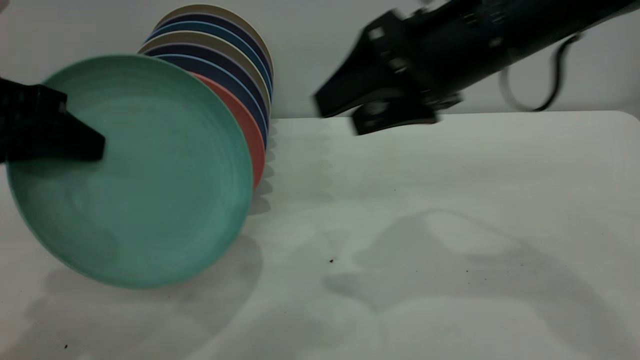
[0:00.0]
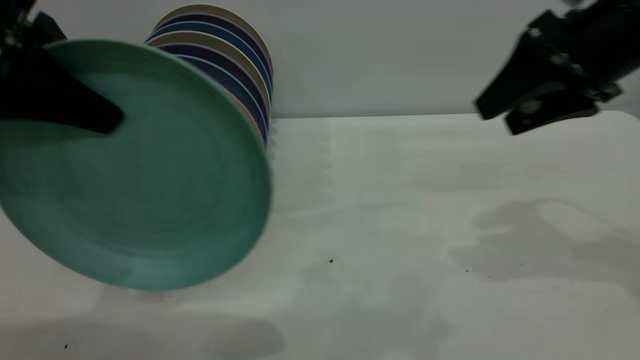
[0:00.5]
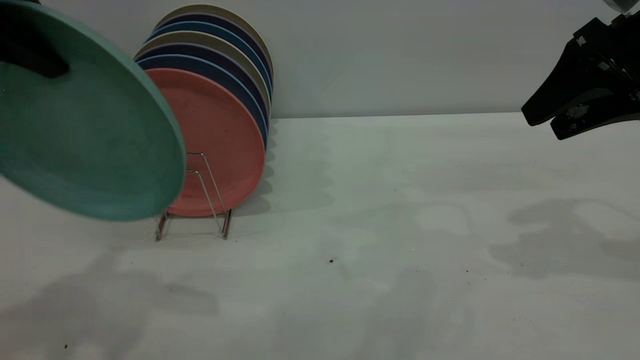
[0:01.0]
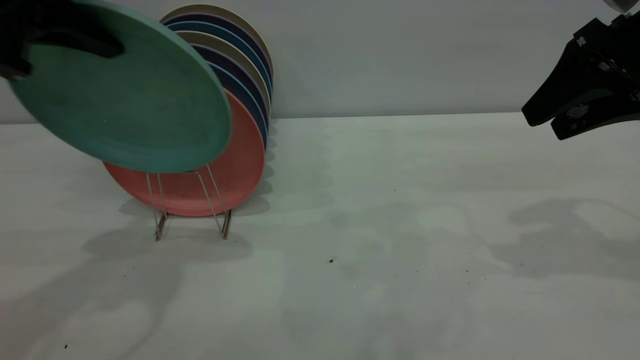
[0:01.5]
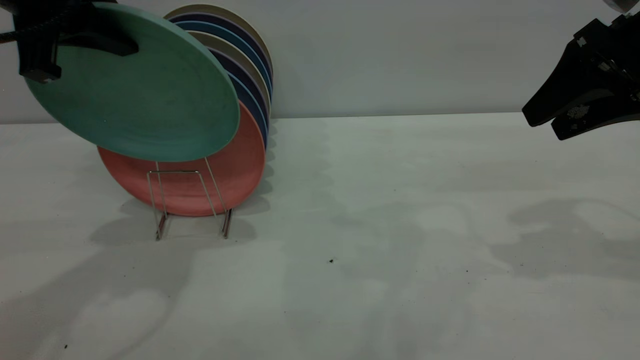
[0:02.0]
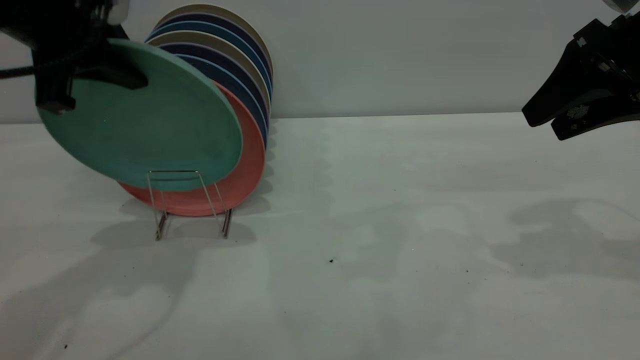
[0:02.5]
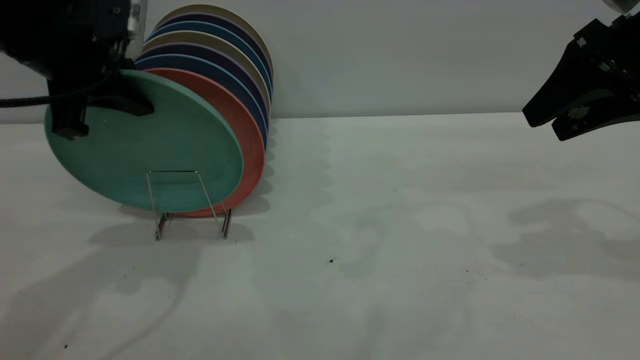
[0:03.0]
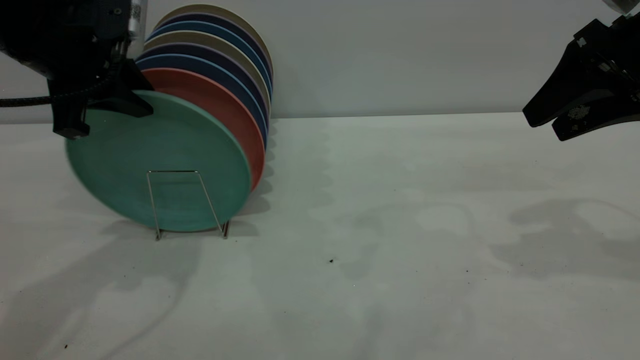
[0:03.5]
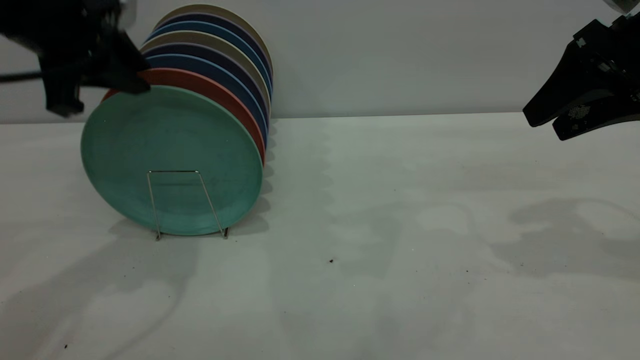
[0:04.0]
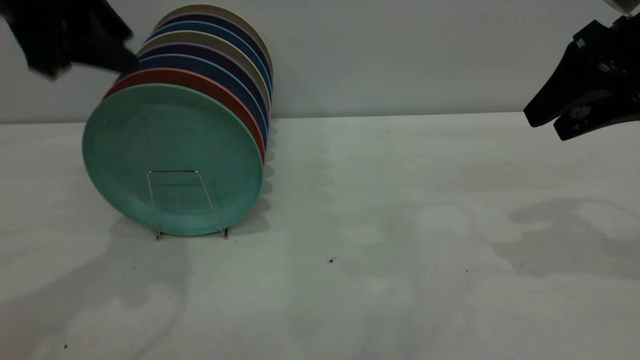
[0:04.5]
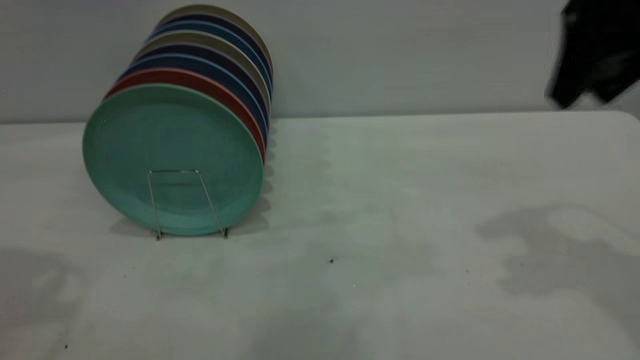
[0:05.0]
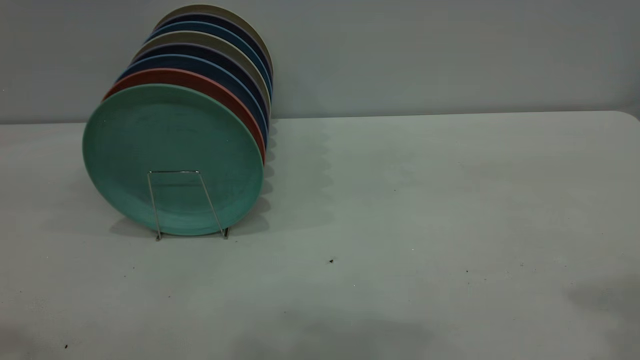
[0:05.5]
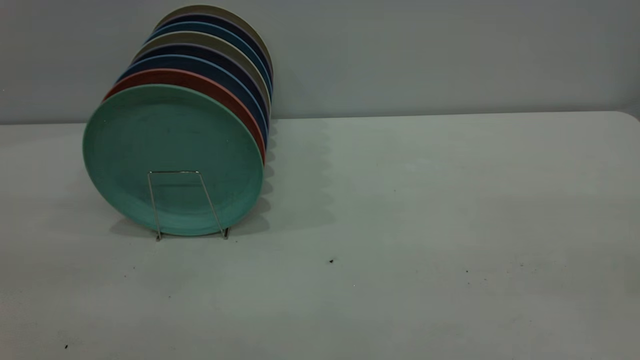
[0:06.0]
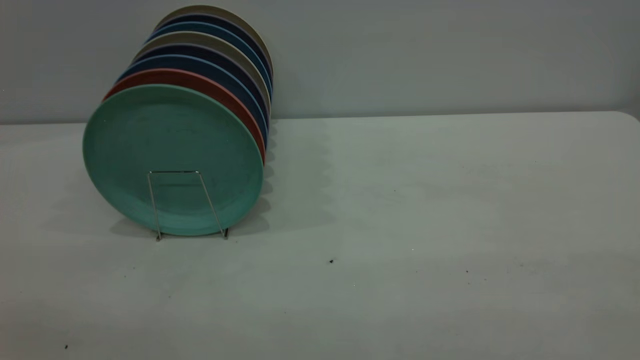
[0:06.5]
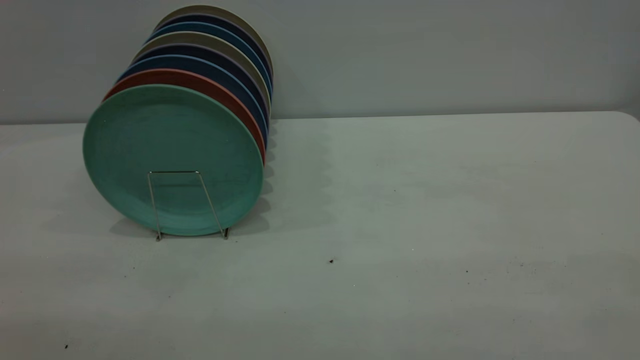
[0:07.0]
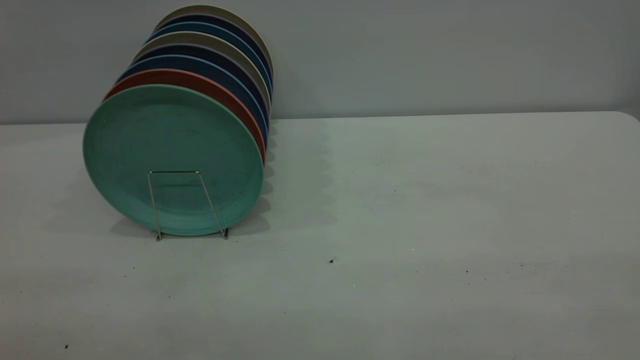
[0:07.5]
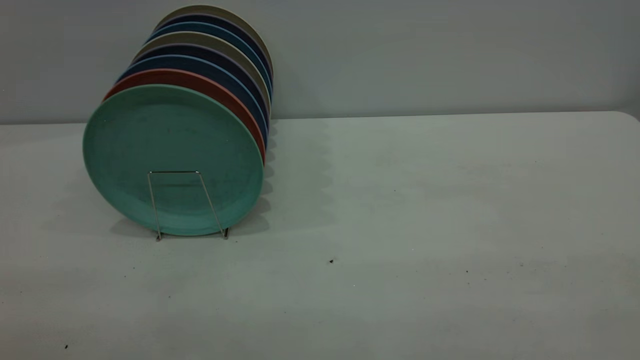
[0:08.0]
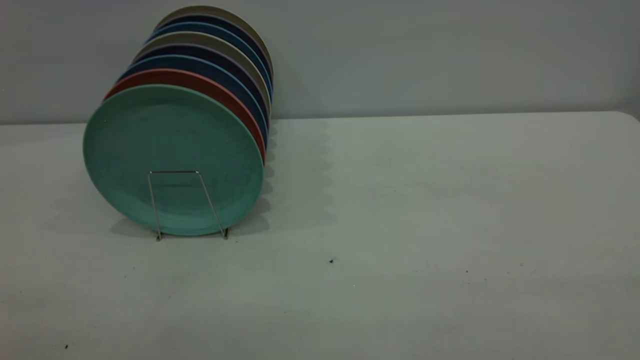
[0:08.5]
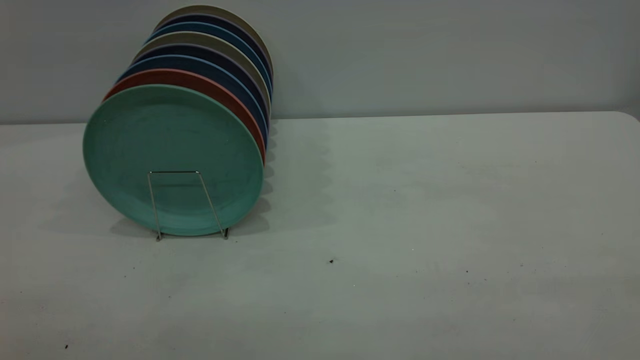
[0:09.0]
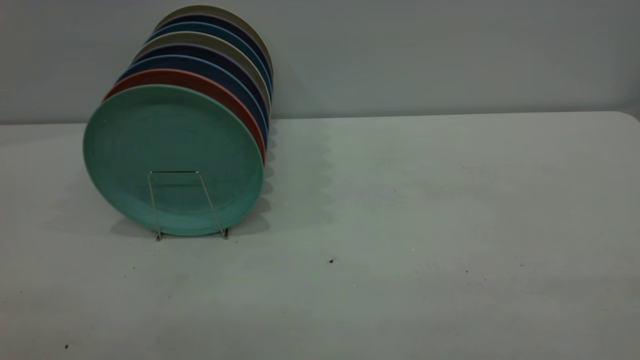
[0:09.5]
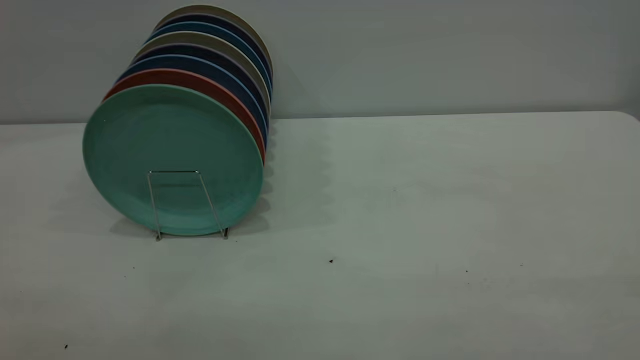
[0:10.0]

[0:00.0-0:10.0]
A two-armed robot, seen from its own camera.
Task of the whole recording: the right gripper grasp the green plate, the right gripper pass the green plate to the left gripper, and the left gripper place the green plate on the plate rack.
Step, 0:00.0 to 0:04.0: Place the plate on the shelf.
0:00.0 to 0:02.0: The right gripper travels to the right by some 15 cm, while the left gripper goes roughly 10 cm forward and upward.
0:02.0 to 0:04.0: There are only small adjustments of the grippers.
0:04.0 to 0:06.0: The grippers both shift backward and upward by about 30 cm. The left gripper opens.
